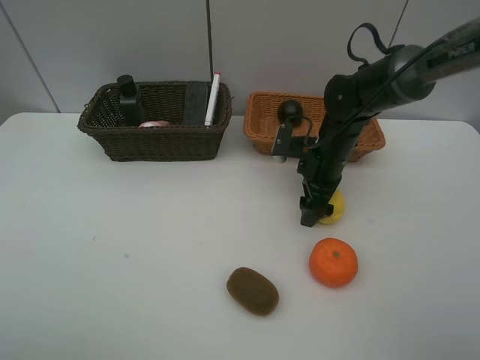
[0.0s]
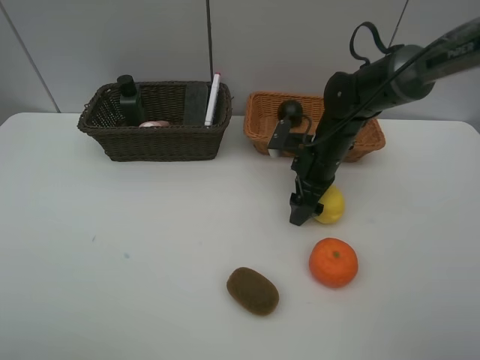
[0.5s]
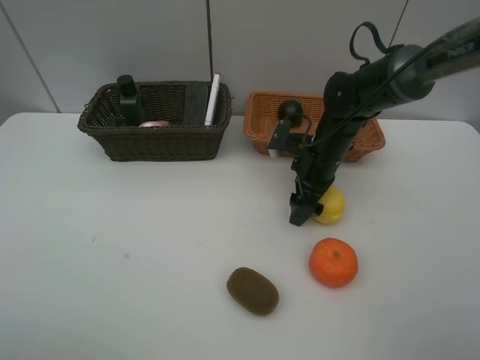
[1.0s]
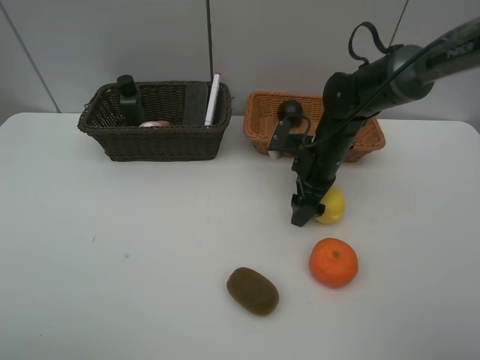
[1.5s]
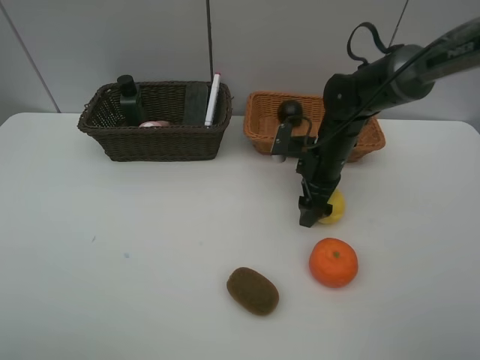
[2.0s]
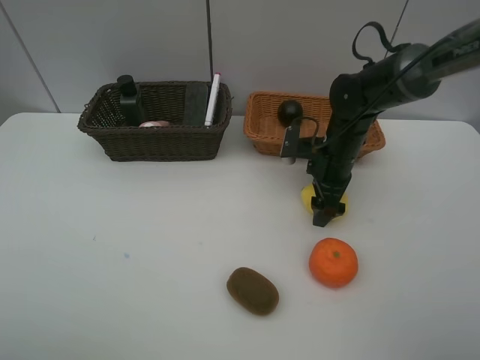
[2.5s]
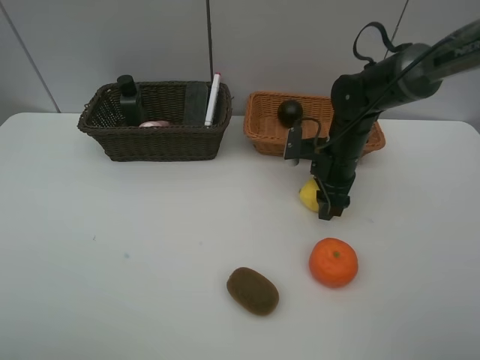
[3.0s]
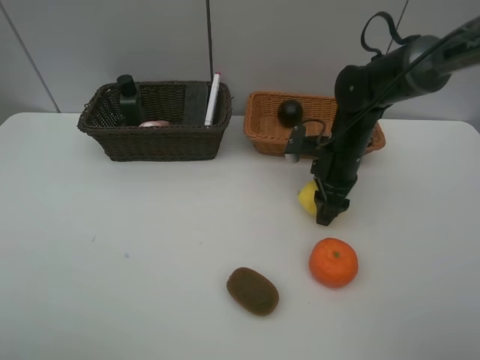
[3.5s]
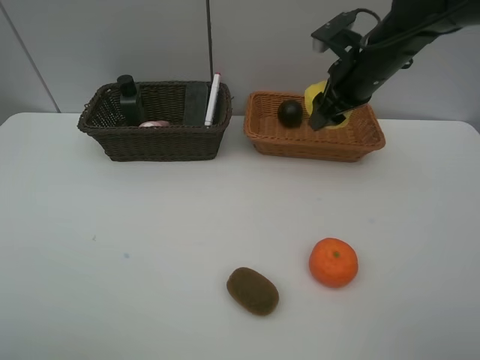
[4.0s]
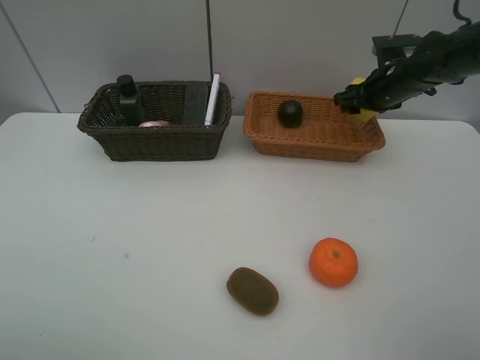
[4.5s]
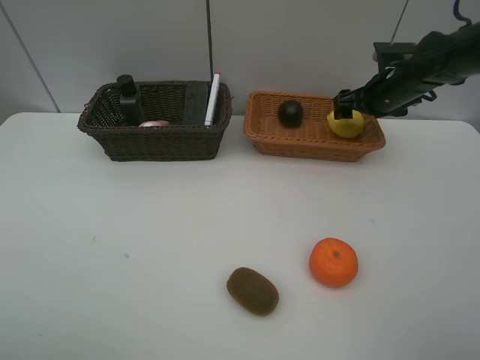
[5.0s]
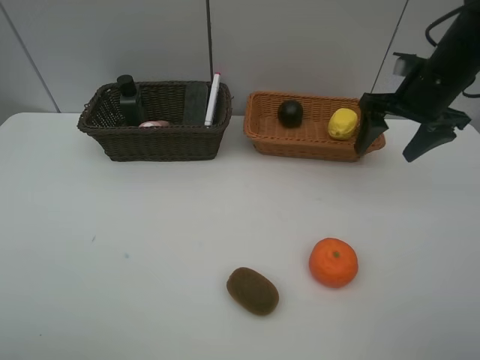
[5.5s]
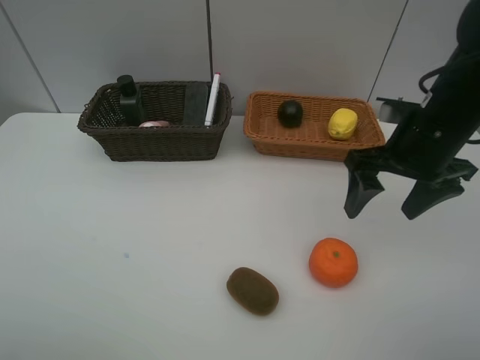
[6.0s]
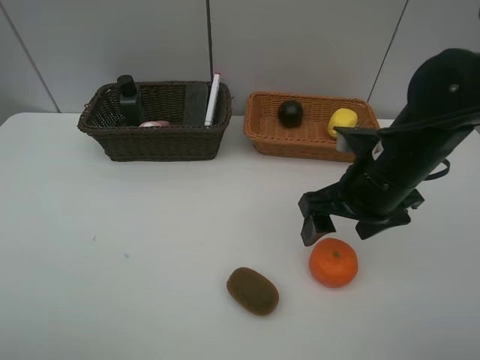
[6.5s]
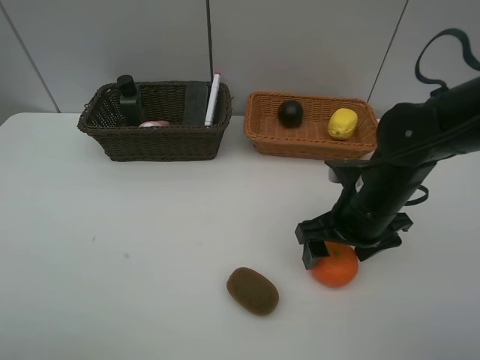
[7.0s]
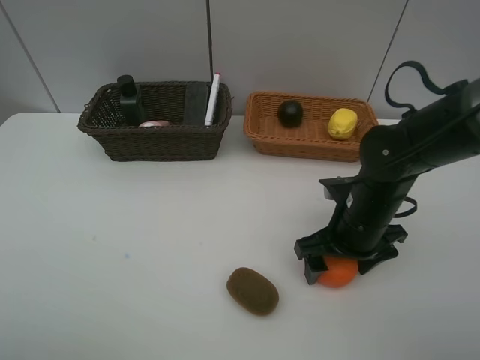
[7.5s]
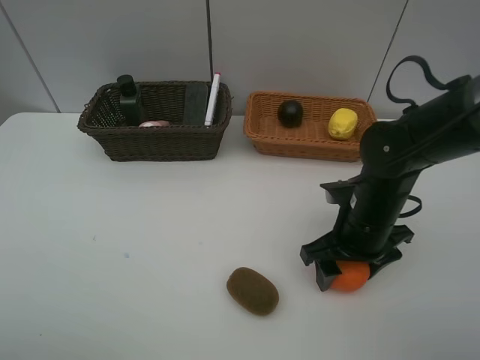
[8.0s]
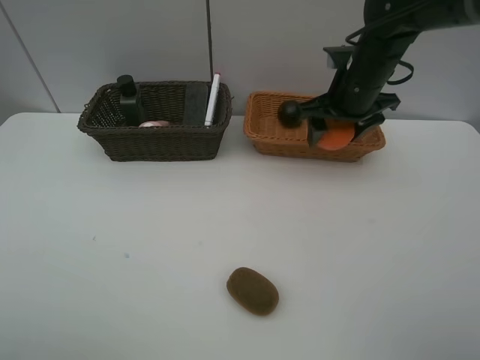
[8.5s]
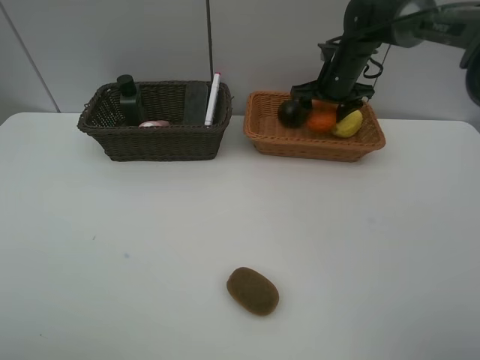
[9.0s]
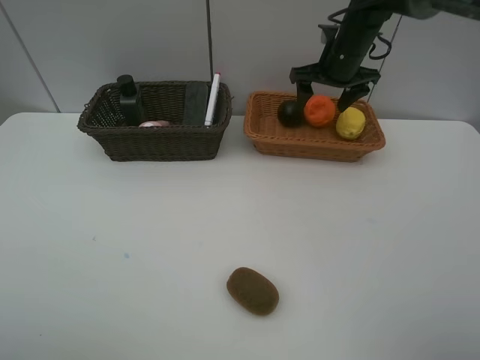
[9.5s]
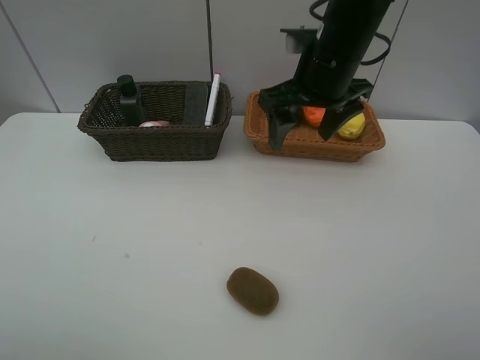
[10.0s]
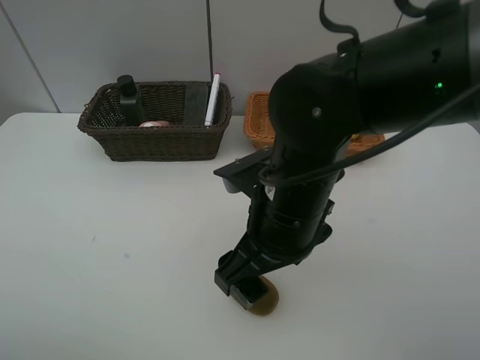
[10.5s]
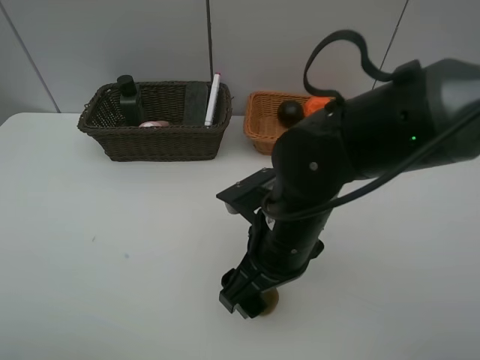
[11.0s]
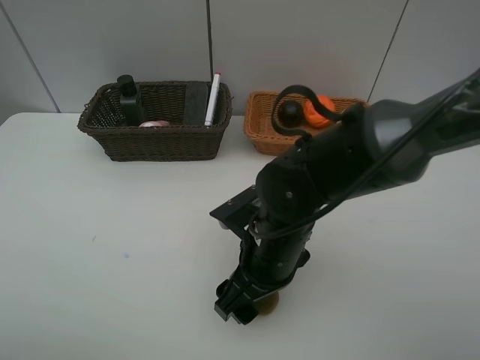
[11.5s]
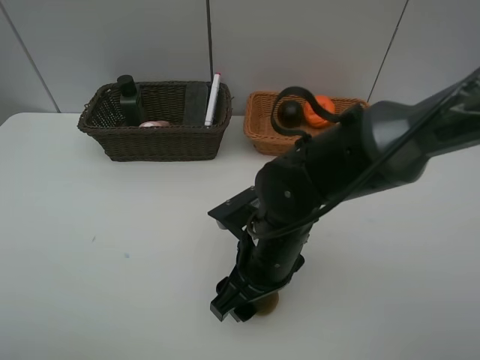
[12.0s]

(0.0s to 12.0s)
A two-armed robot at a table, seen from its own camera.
Task of the whole recording: Place multiple objects separately in different baskets.
Step, 0.0s - 3.5s: Pick up the lemon with right gripper.
Step, 4.0s - 5.0s: Place the lemon in the light basket with right gripper.
Step, 5.5s - 8.0s: Pick up the orange with right gripper.
Step, 8.5s - 9.5s: Place the orange in the light basket with right gripper.
2.0s - 4.0s: The right gripper moves upward, about 15 cm, and closes its fingers.
4.0s - 6.0s: The right gripper moves backward, approximately 15 cm, and opens.
6.0s - 8.0s: The right gripper moves downward, roughly 10 cm.
8.0s - 10.0s: The right gripper moves upward and to the left, roughly 15 cm, and travels forward and back again, some 25 cm each way.
10.0s - 12.0s: The right gripper is displaced downward and backward by roughly 20 cm.

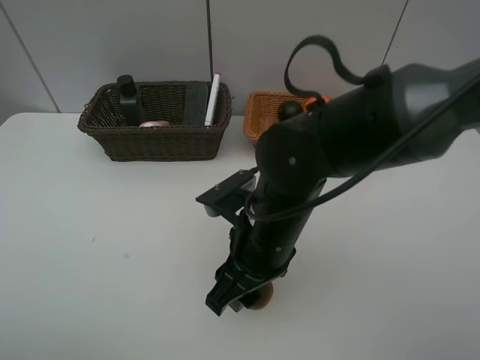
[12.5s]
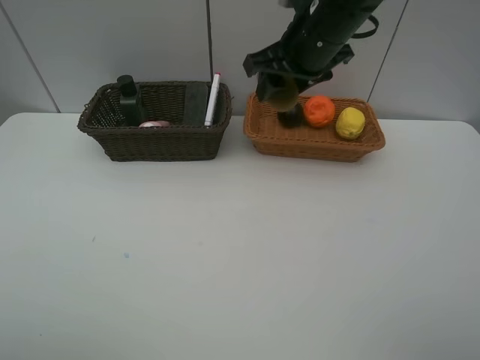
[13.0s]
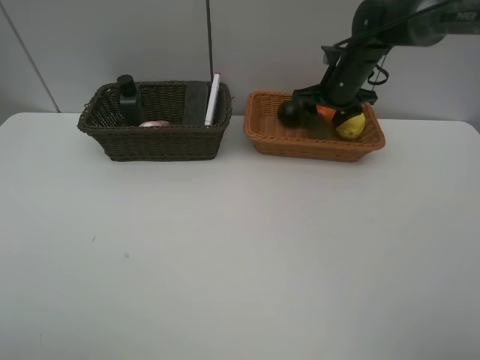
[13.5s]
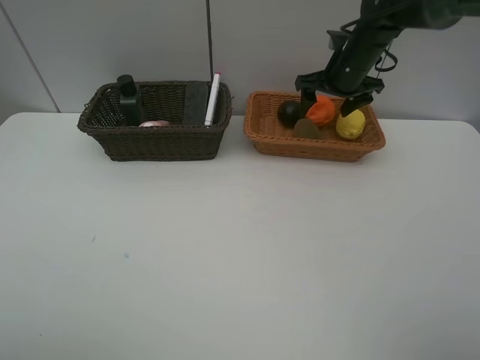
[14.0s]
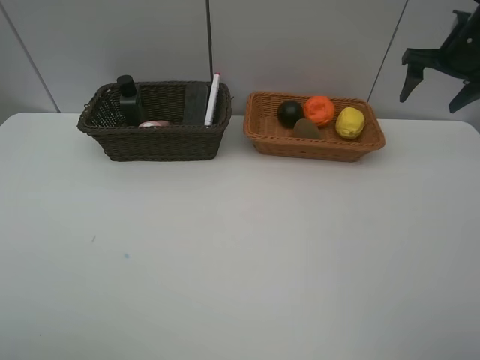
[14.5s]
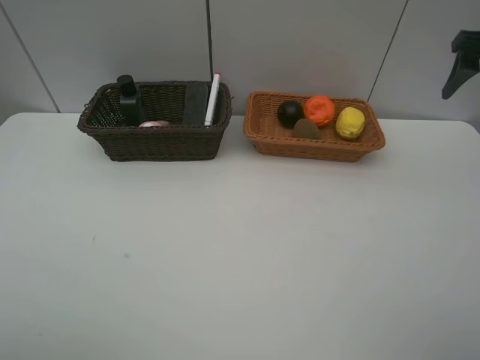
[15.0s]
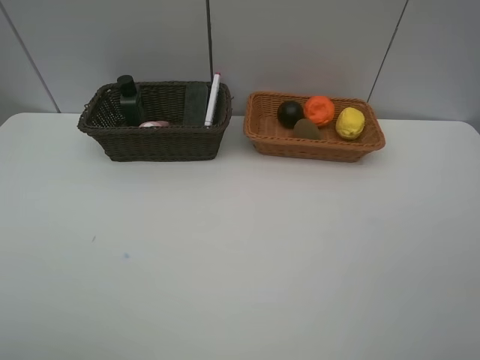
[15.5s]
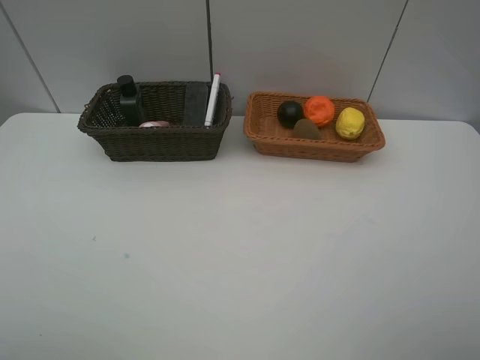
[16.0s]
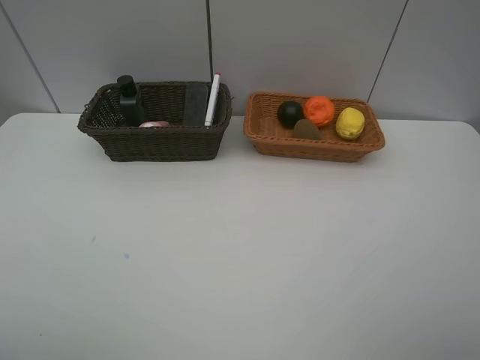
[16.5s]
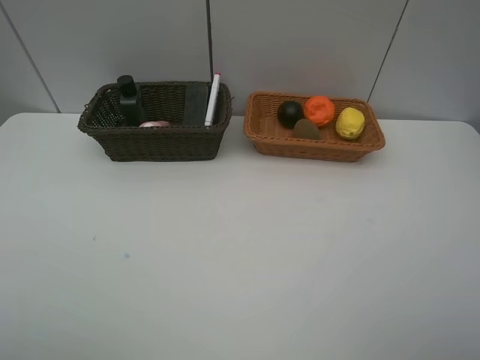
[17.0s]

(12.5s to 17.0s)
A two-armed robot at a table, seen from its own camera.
Task of the whole recording: Place multiple objects separately in different baskets.
Step, 13.0s - 13.5s: Place the kiwi in the light basket with right gripper.
12.5s - 14.5s: The right gripper travels to the right and forward by about 40 cm, and opens its fingers.
14.5s - 17.0s: The right gripper shifts approximately 50 cm backward.

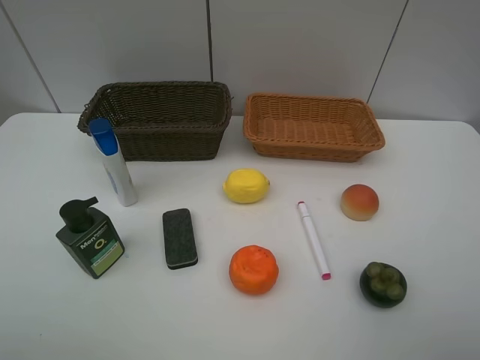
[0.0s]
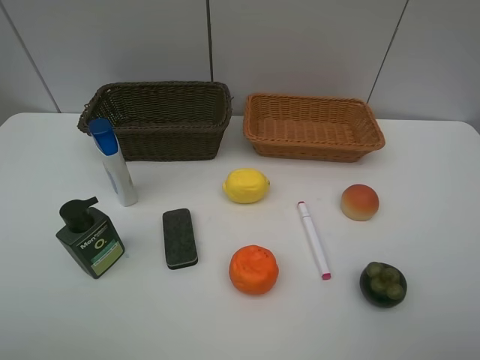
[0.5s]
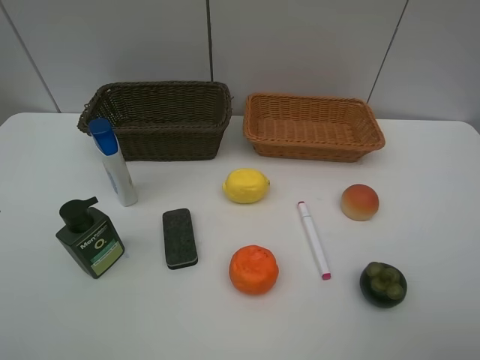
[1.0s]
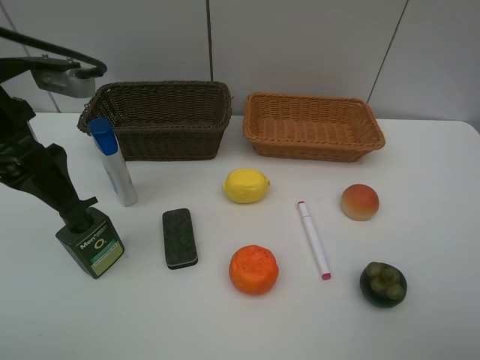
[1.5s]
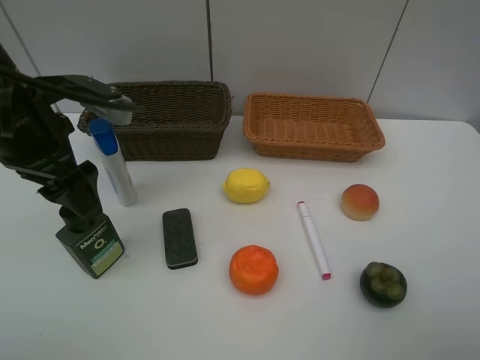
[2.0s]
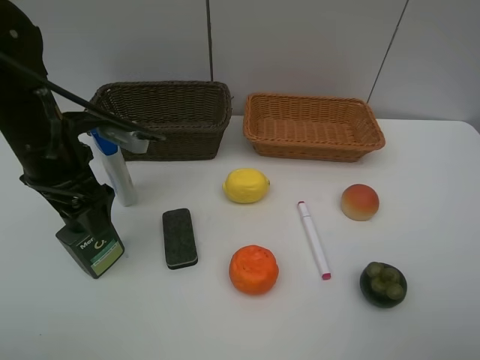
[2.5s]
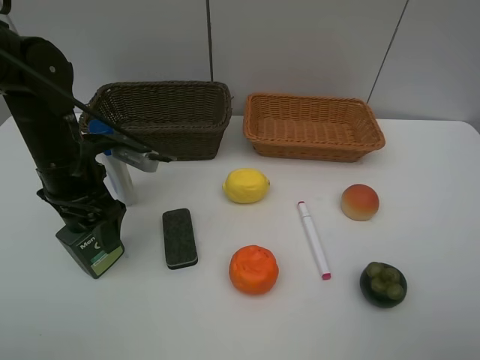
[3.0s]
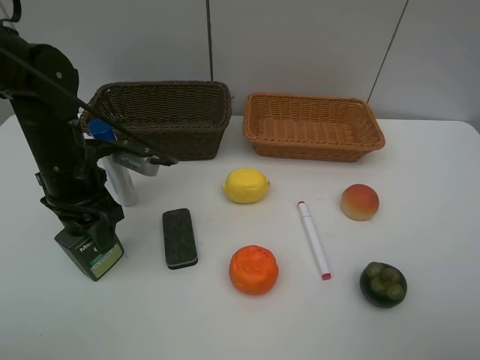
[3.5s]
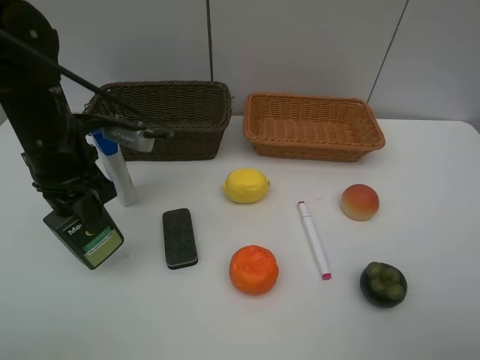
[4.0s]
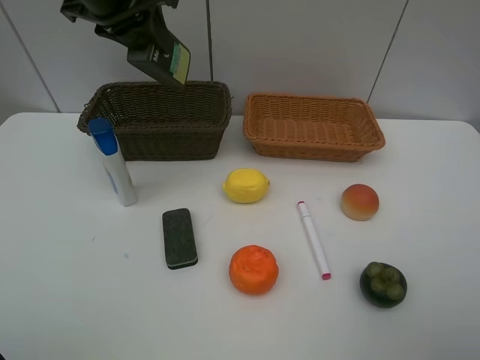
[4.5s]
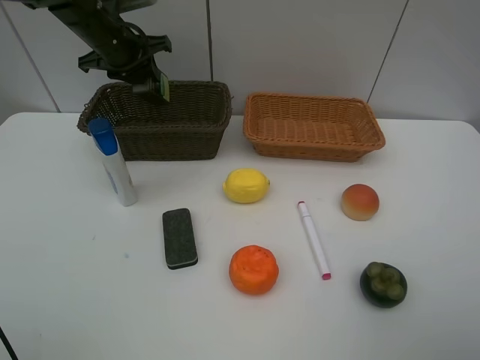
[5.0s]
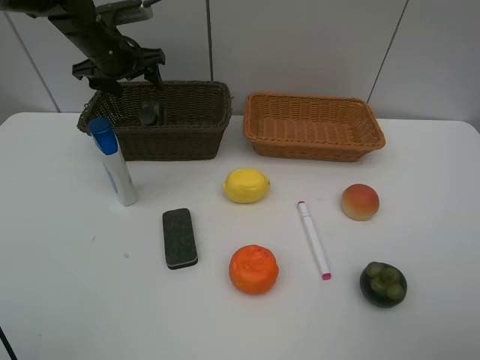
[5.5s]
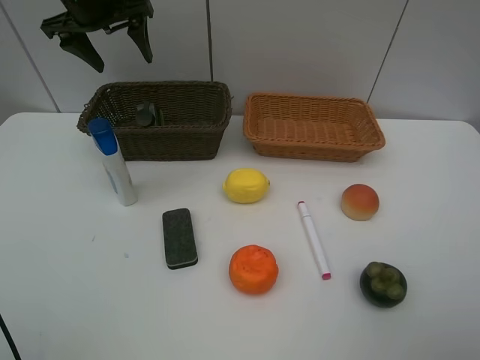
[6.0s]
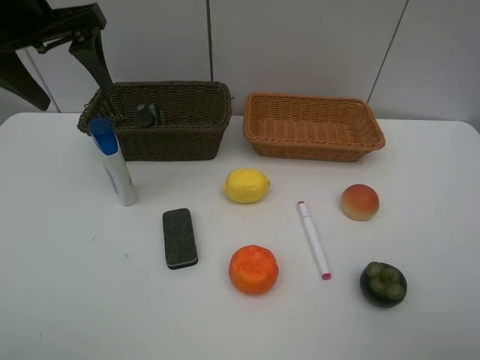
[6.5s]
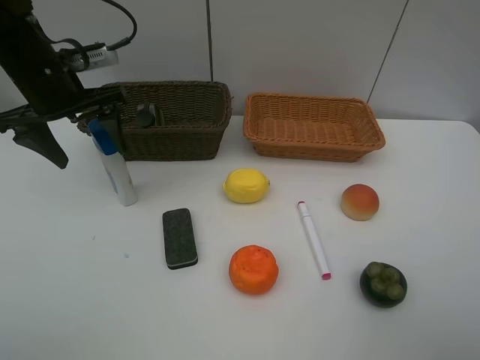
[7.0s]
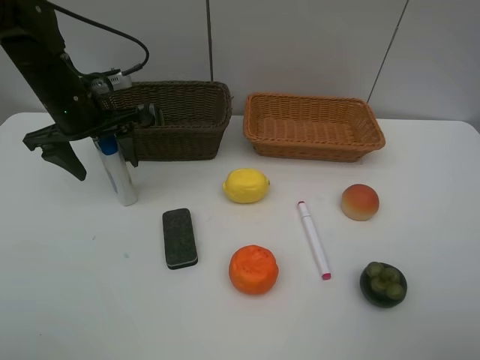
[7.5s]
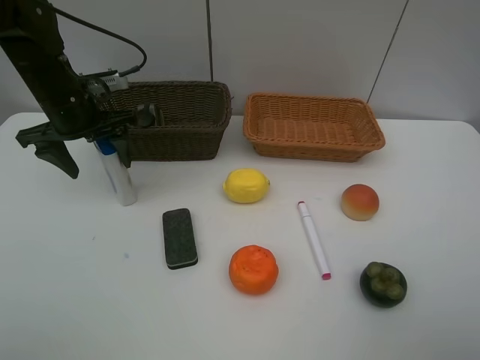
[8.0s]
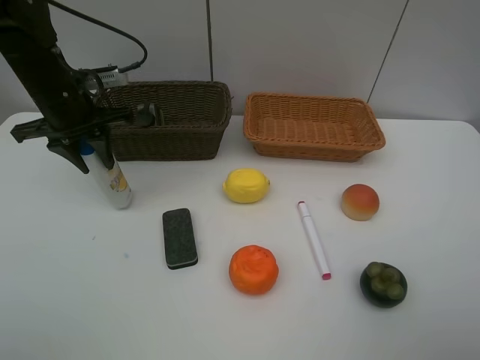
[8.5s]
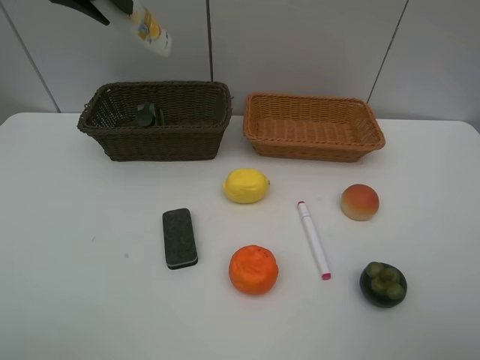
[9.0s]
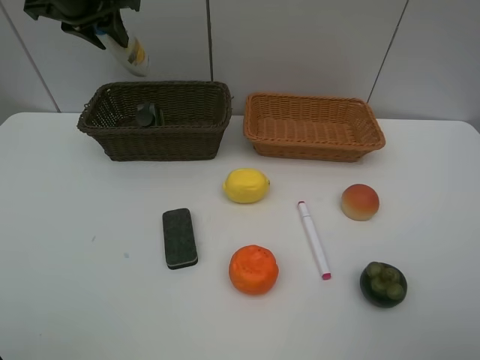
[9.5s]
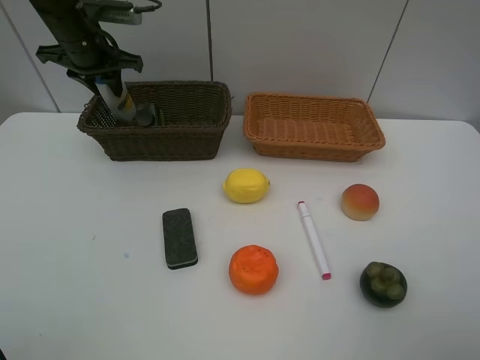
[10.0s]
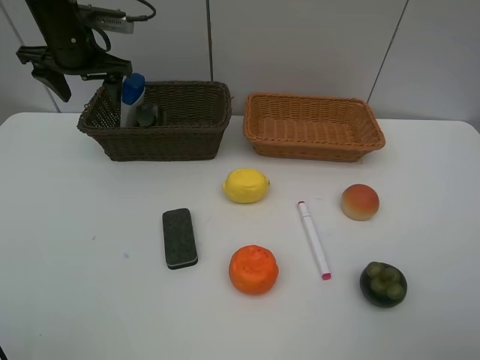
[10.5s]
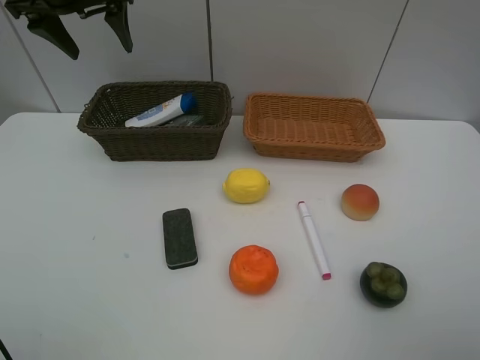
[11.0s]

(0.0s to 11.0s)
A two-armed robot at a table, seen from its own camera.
Task of the whole recording: Place multiple objects separately in different baskets.
Step, 0.0s - 4.0s: Pick up the hard facial cleanser with left gripper.
Step, 4.5s - 5.5s: Place the hard facial cleanser in the dark basket with left gripper.
Step, 6.0s - 8.5s: Pick up the shampoo with left gripper.
Step, 9.0s - 10.5s: Place the shampoo in the dark basket with left gripper.
0.0s - 2.0s: The left gripper goes roughly 25 cm forward.
2.0s - 3.5s: The left gripper shifts approximately 10 cm downward, and closes up.
3.5s - 5.5s: The left gripper goes some 20 cm forward, and opens its fingers.
5.5s - 7.5s: The left gripper is displaced backward by roughly 10 cm.
7.5s - 9.0s: The left gripper heads upward, covering approximately 20 cm, and closes up.
9.0s - 11.0s: The left gripper moves forward, approximately 5 cm, travels downward and back again, approximately 15 cm each way, and opens its fingers.
